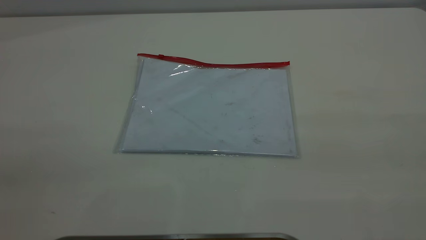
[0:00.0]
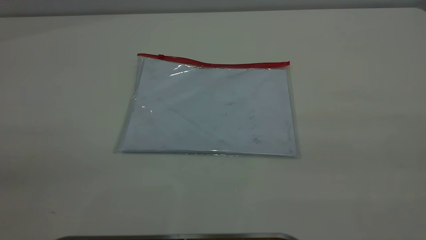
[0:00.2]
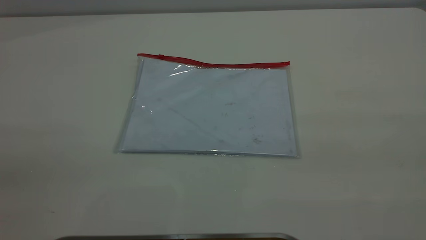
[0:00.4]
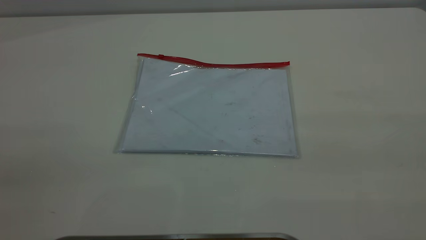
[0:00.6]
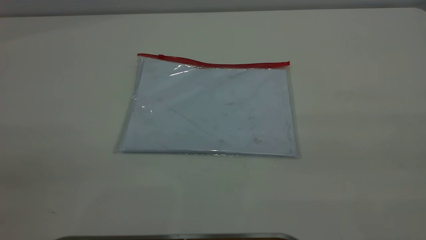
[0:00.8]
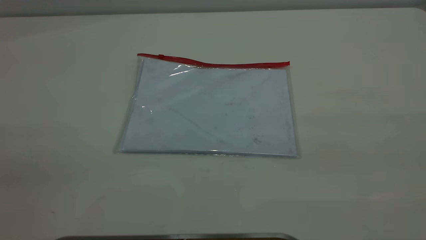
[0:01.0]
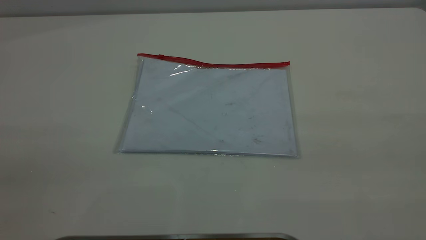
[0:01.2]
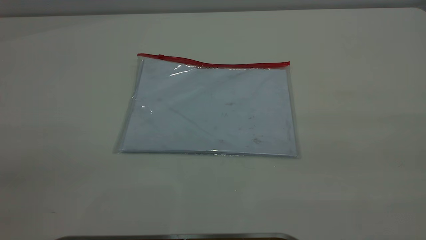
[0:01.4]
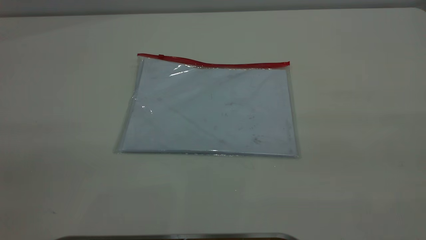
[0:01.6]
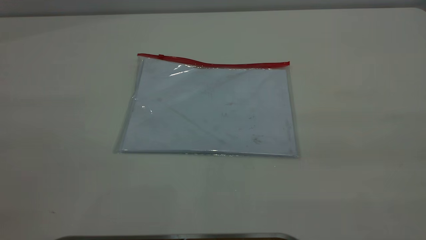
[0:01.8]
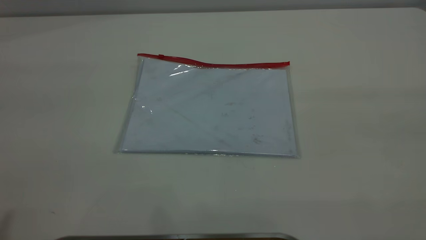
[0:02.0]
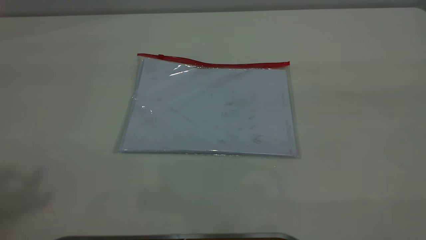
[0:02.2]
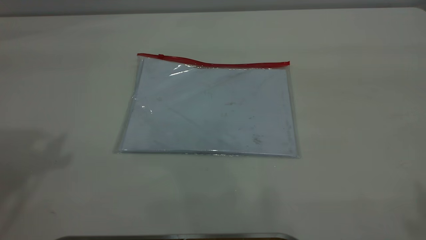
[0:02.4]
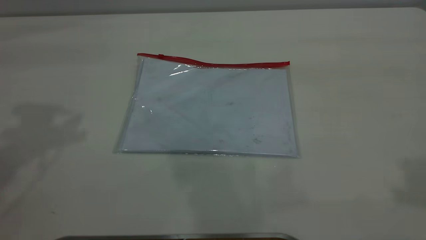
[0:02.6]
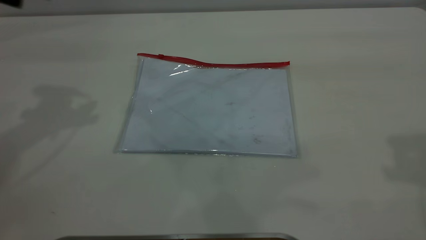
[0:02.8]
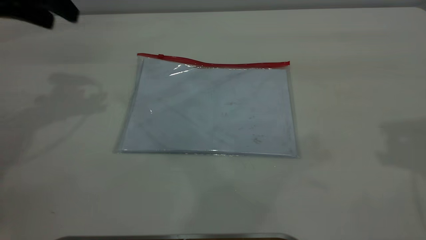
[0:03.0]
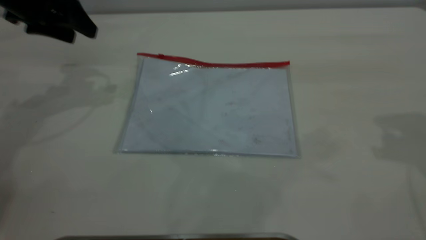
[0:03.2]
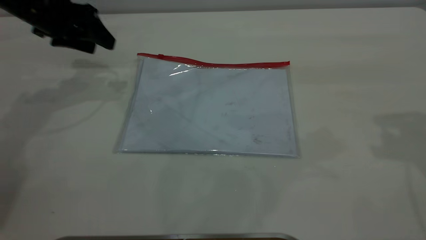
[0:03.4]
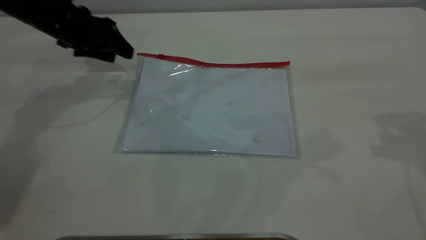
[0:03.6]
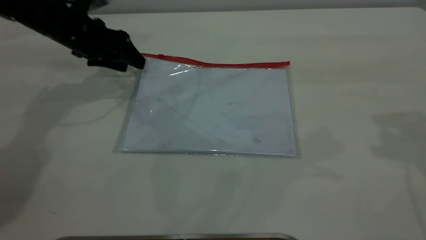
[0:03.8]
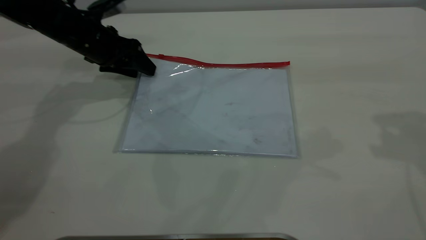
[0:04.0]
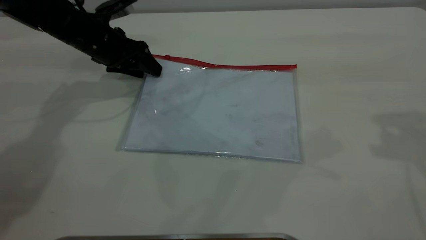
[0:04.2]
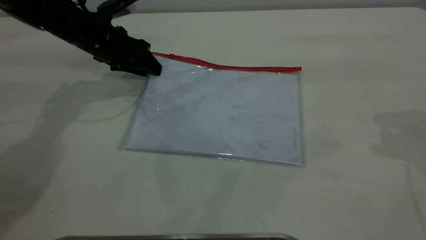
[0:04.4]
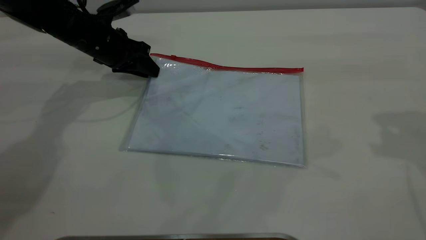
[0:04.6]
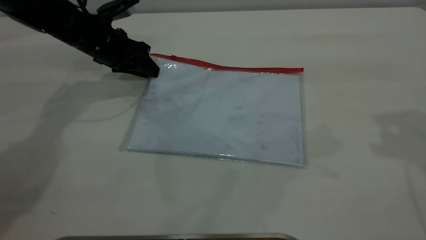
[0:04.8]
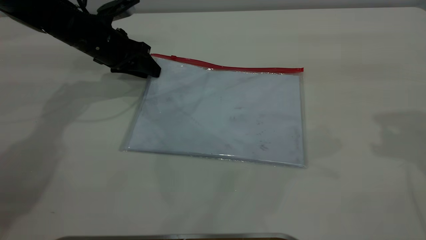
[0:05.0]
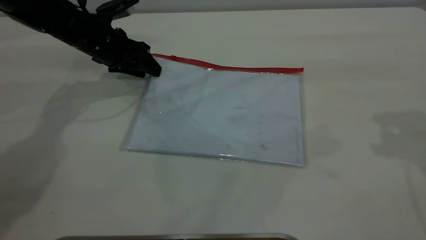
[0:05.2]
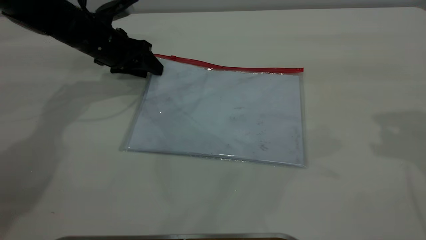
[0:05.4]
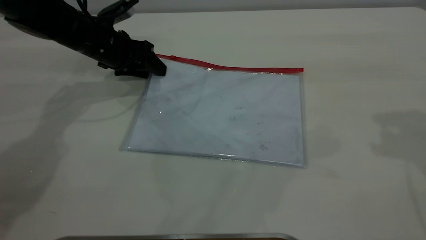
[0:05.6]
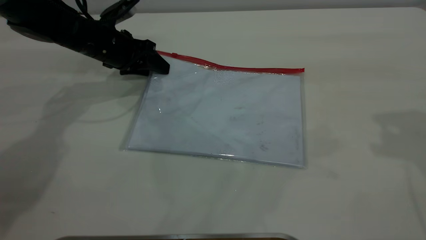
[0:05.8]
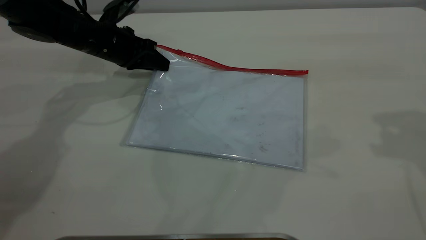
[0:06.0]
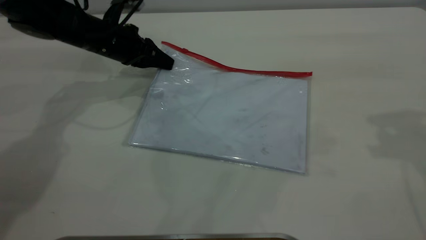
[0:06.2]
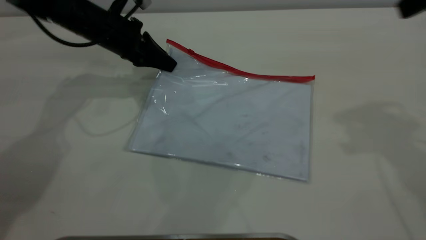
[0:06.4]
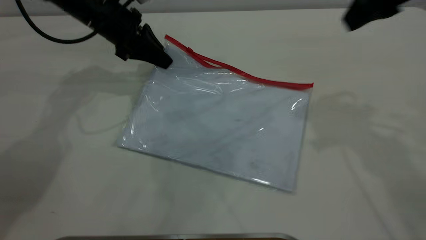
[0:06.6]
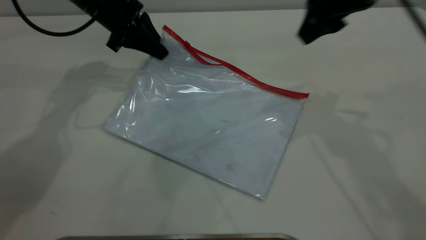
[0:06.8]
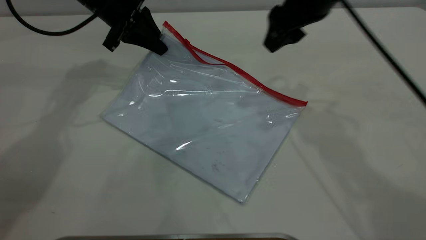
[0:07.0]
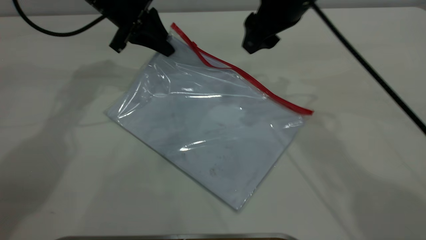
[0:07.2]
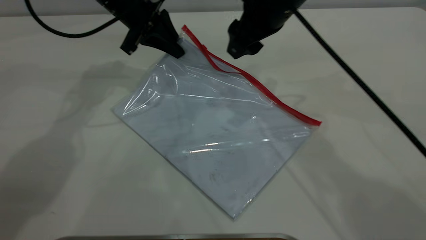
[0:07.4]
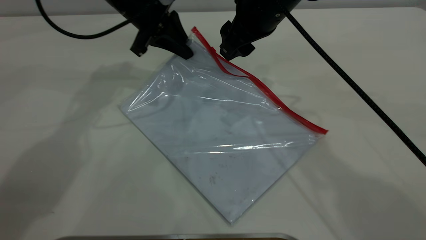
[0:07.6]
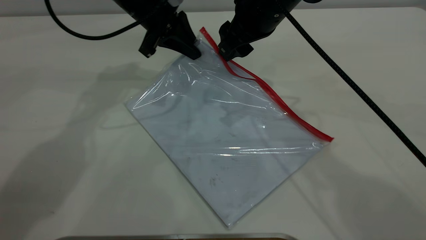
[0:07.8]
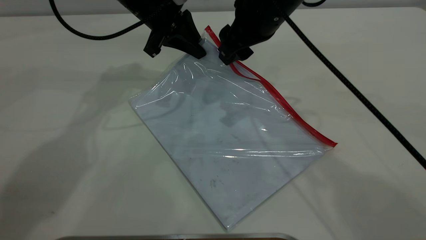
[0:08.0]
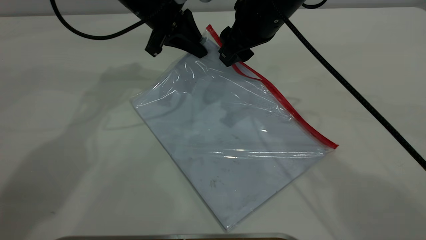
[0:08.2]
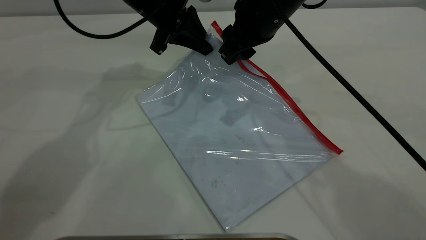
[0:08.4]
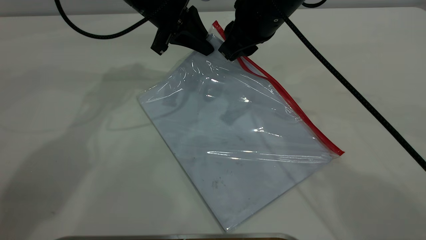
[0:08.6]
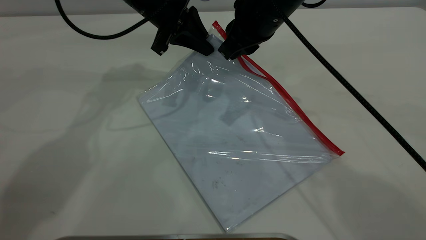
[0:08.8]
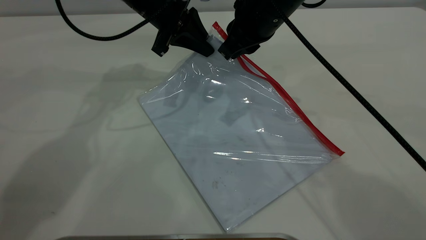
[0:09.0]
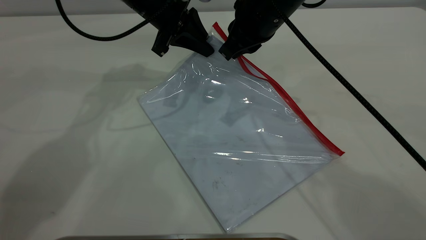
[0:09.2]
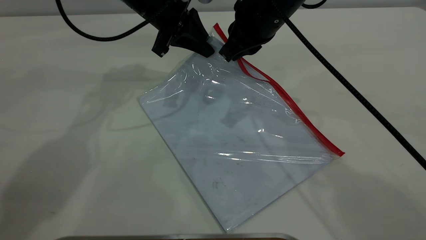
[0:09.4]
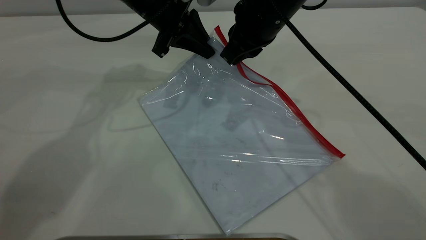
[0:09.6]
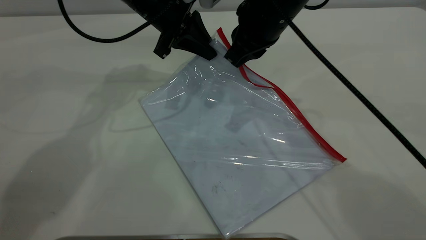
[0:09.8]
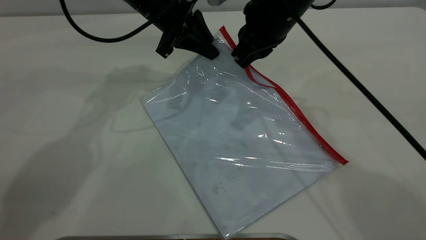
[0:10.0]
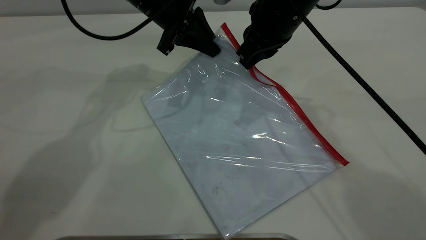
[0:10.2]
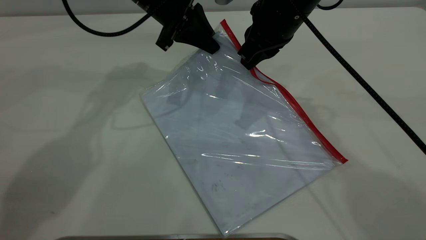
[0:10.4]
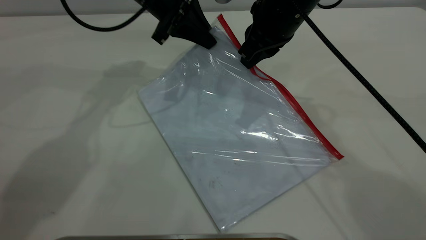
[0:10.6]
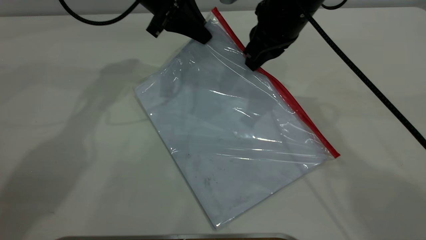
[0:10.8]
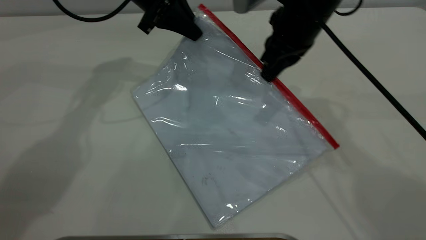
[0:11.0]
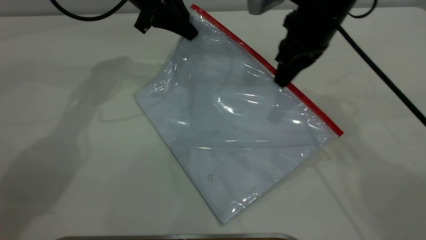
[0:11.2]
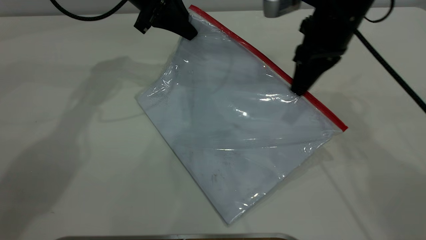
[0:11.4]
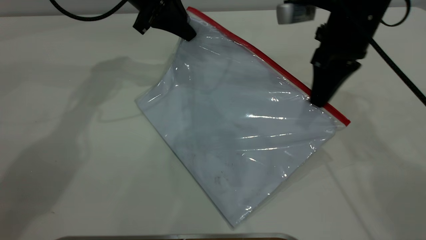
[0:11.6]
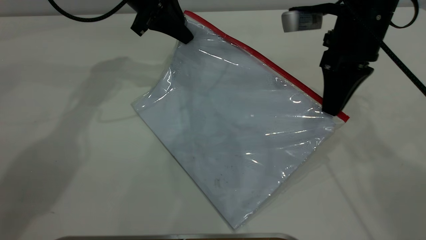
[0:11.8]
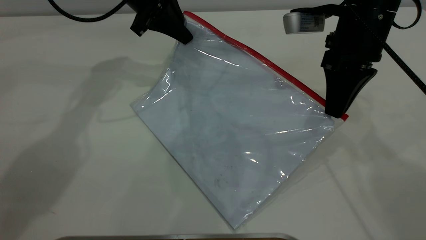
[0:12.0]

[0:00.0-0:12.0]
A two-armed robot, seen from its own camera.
Step, 0:00.0 to 0:06.8: Pick up the transparent plastic bag with the left gripper.
0:00.0 to 0:01.6: Both grippers stay put.
0:01.6 to 0:03.0: The left gripper moves forward, about 40 cm.
0:03.0 to 0:04.4: The left gripper shifts about 20 cm downward, to the right and forward.
0:04.4 to 0:06.0: The left gripper closes its fingers.
0:06.0 to 0:07.6: The right gripper goes some 30 cm to the left, forward and downward. Meanwhile the left gripper is displaced upward and to the right by some 10 cm.
0:07.6 to 0:09.0: The right gripper closes up.
0:09.0 to 0:10.4: The grippers make only small movements.
0:10.4 to 0:12.0: The right gripper heads to the right, covering approximately 10 cm.

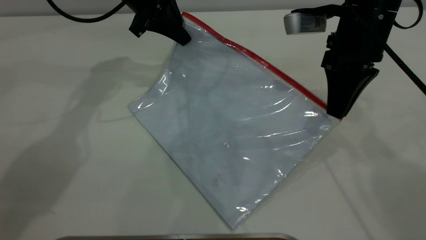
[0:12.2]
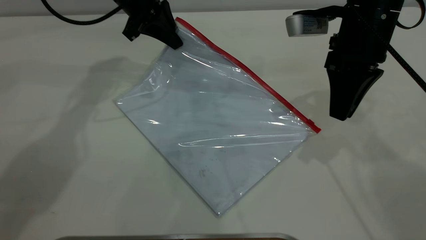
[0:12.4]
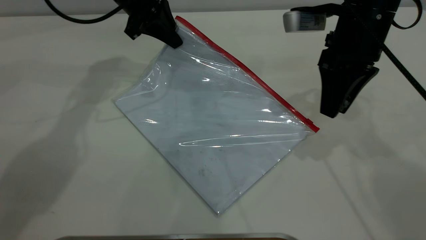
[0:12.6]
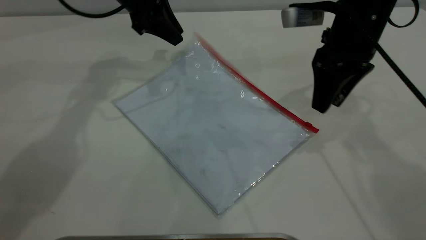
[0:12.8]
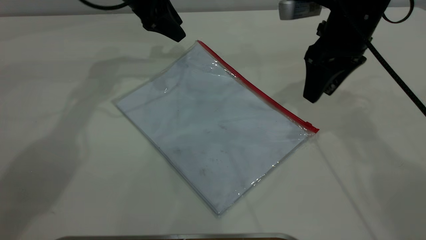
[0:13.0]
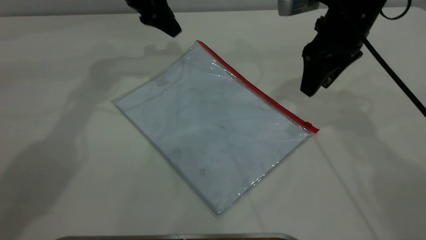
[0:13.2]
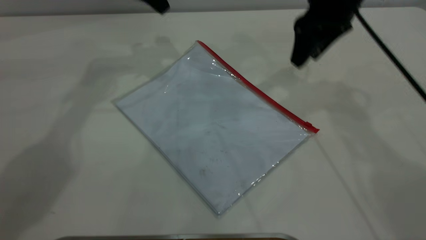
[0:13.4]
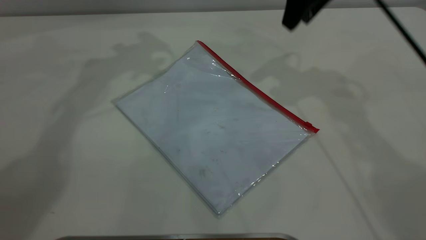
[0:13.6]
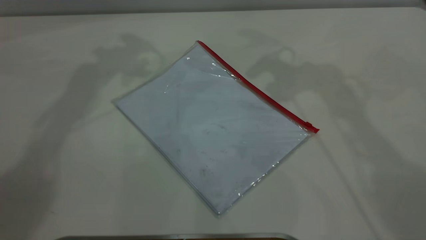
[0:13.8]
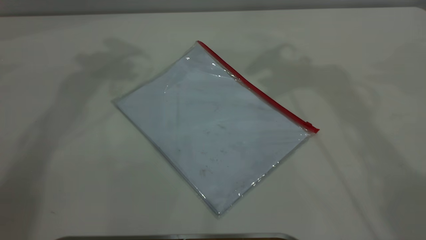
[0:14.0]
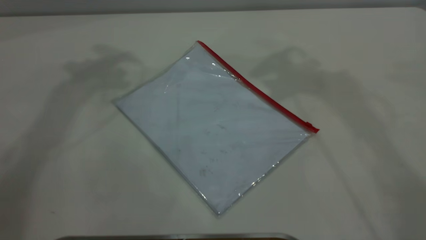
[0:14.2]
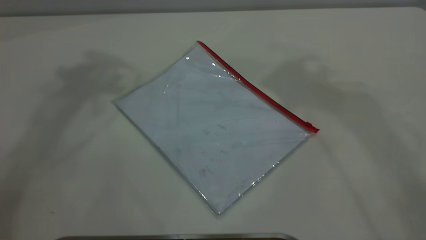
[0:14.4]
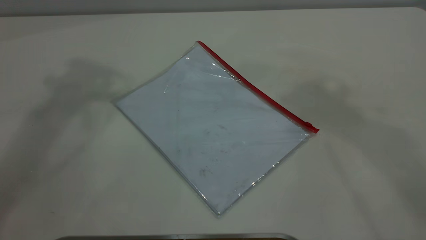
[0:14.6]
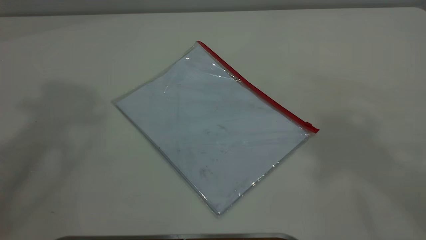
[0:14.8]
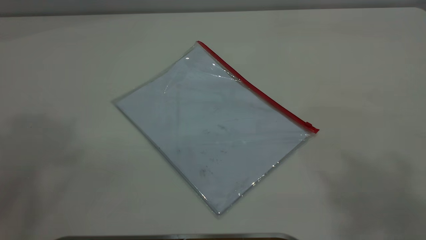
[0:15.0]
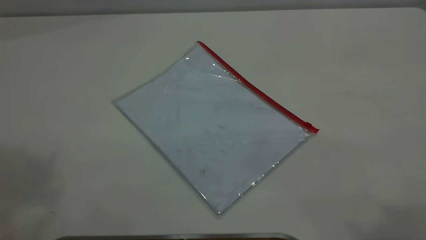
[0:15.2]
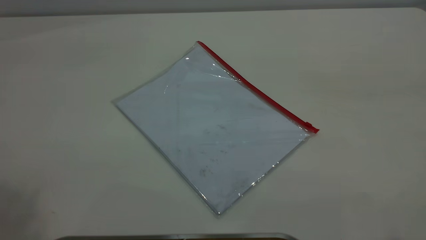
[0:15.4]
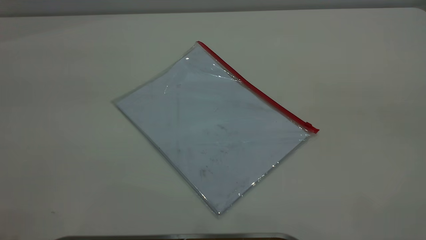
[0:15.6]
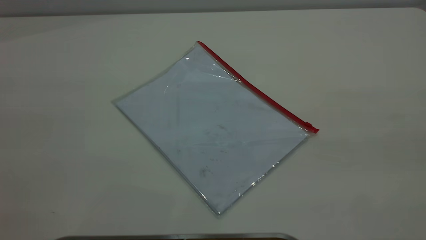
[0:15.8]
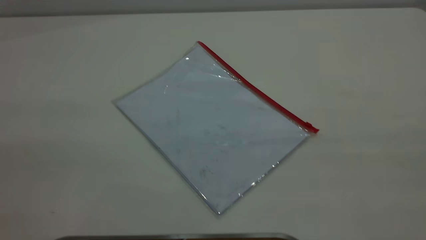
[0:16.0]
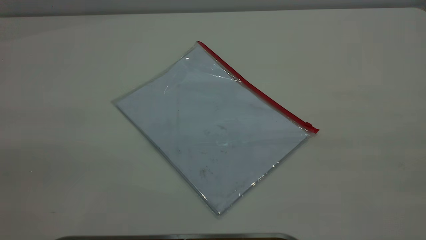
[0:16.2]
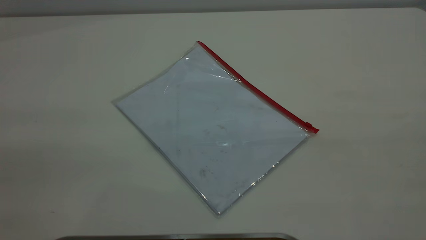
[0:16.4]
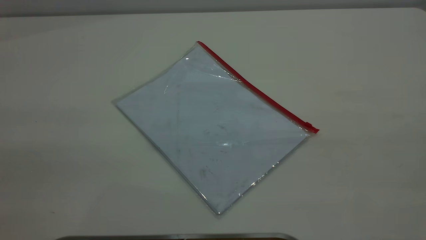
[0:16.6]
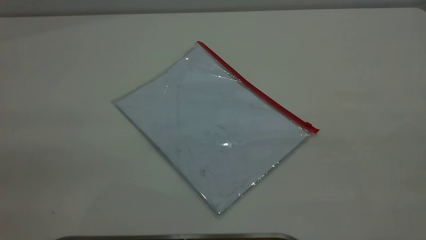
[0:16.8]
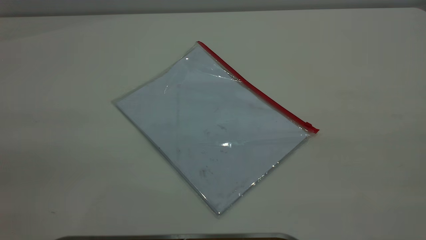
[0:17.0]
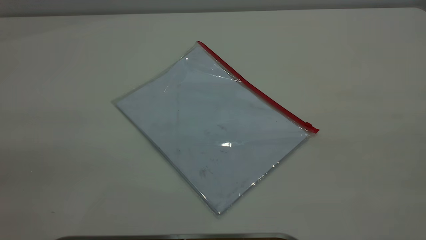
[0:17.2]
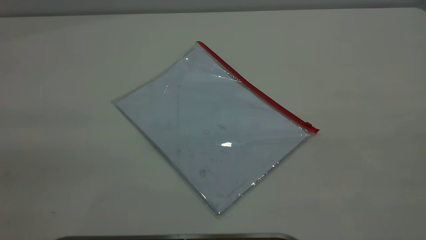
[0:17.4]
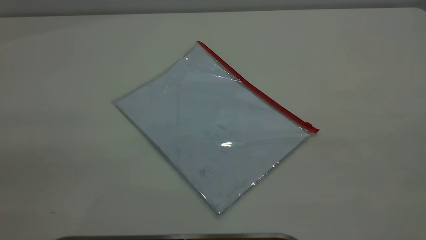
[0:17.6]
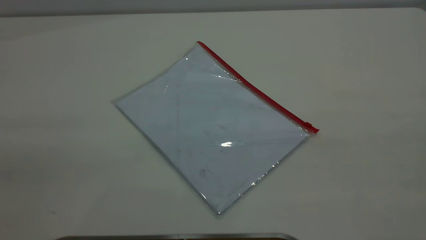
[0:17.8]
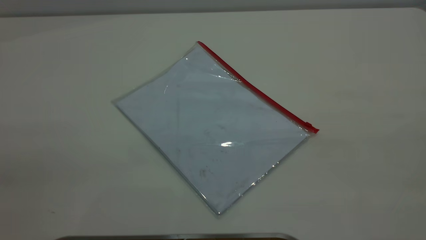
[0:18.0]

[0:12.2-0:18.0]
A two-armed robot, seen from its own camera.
Step, 0:12.8 to 0:13.2: Place the transparent plastic bag.
0:12.2 to 0:13.6: The right gripper goes about 10 cm upward and forward, and opens its fingers. The left gripper shifts about 15 cm upward, and opens up.
0:13.6 to 0:15.0: The right gripper heads upward and backward, covering approximately 40 cm.
